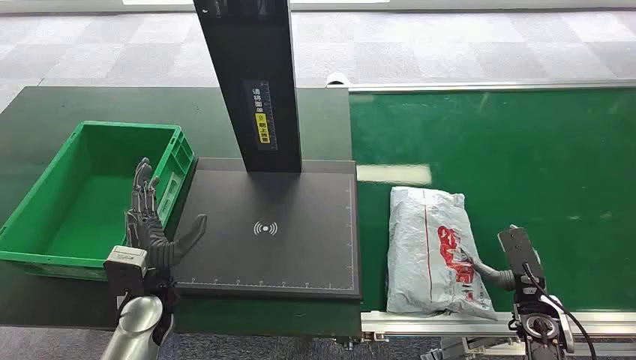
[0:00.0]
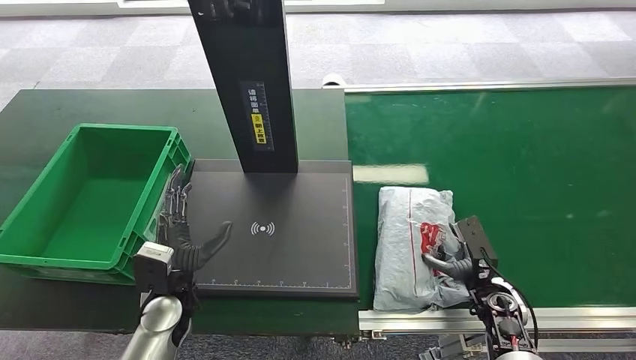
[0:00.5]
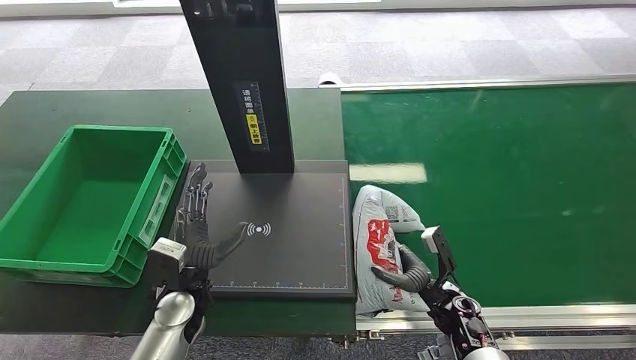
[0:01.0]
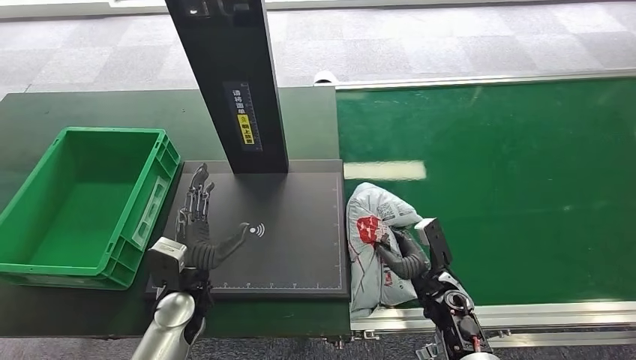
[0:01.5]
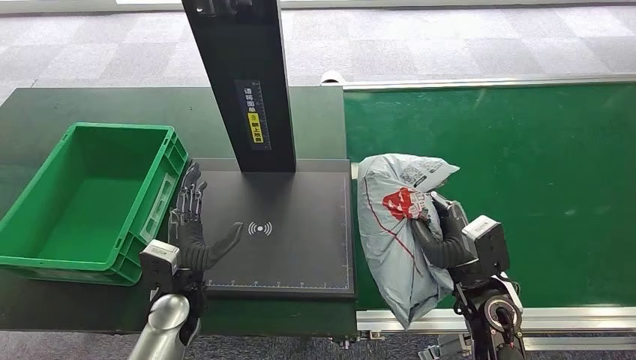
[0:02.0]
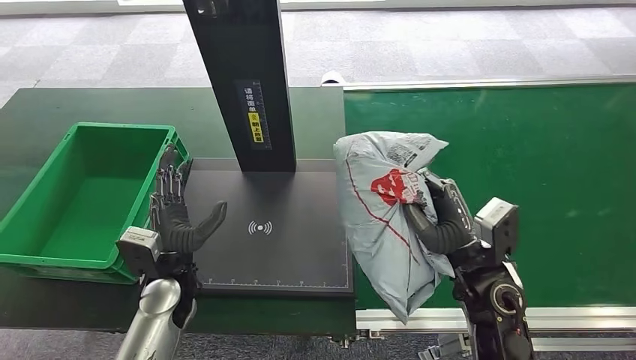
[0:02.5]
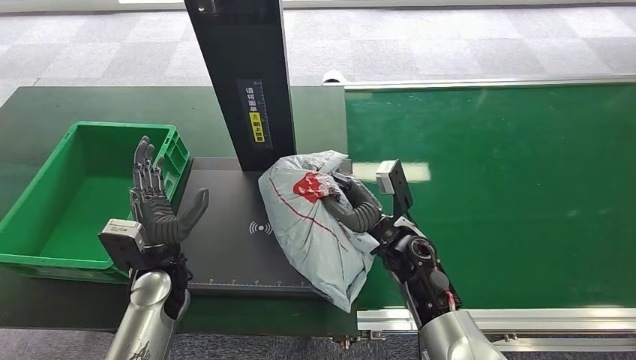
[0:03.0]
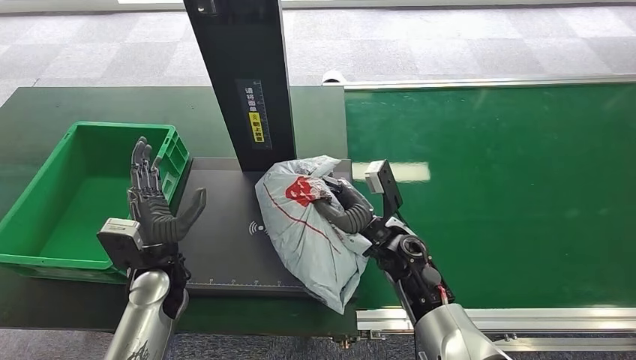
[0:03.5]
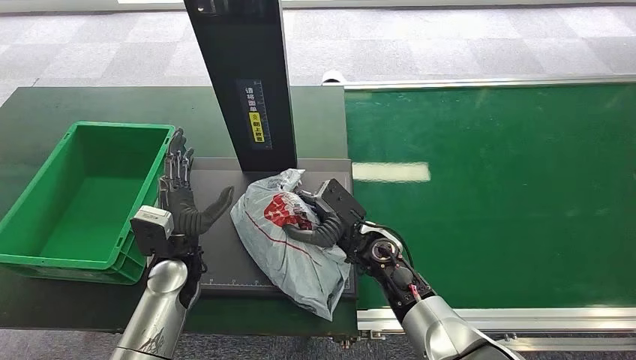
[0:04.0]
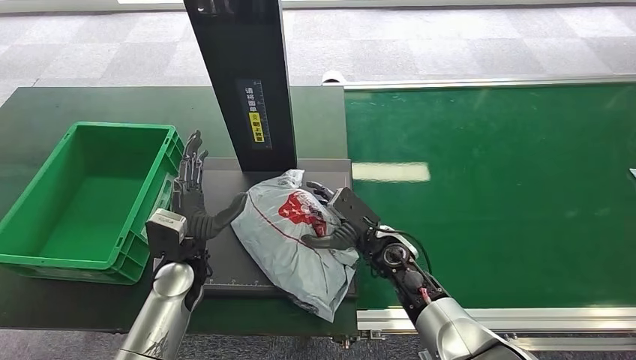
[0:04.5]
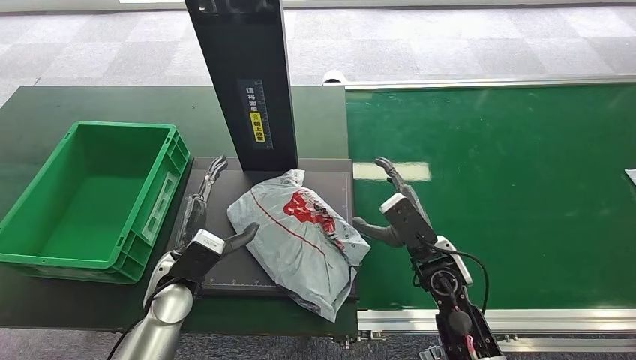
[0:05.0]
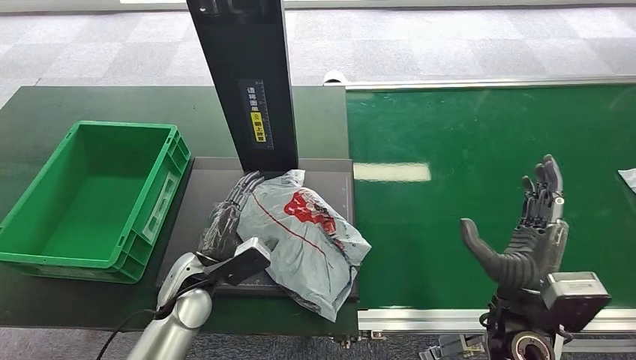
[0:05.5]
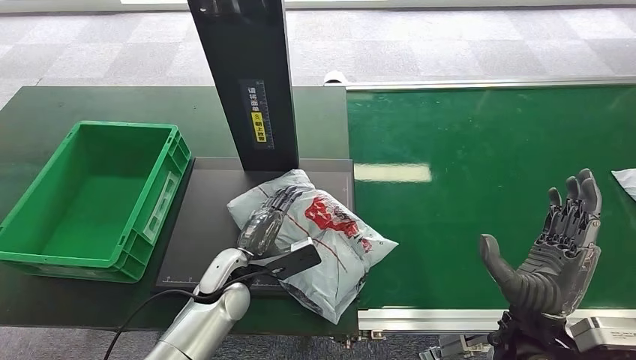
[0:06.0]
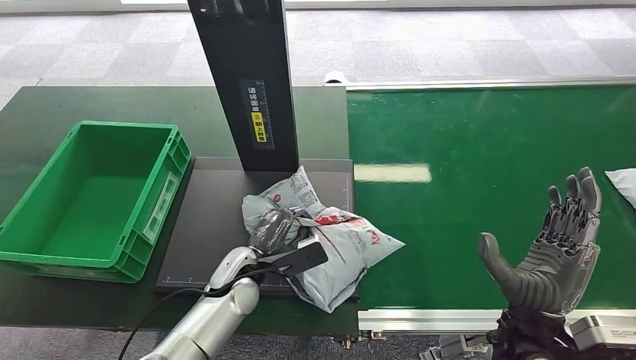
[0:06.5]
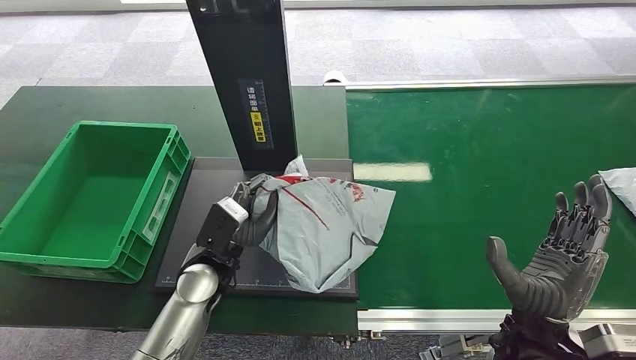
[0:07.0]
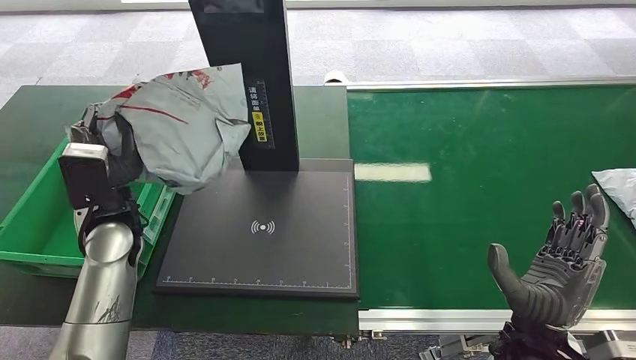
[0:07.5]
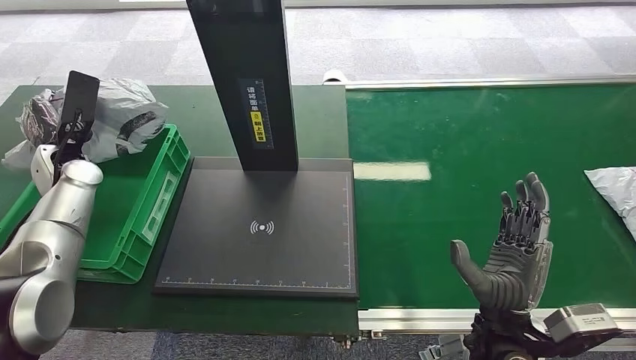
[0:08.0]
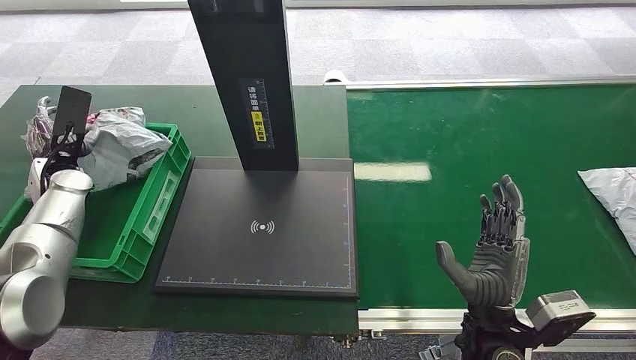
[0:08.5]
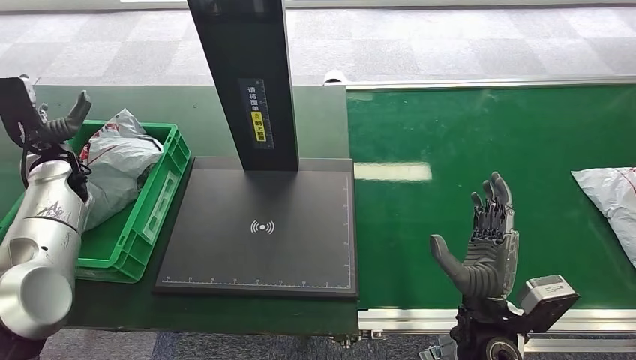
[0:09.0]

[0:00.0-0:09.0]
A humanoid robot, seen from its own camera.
Step, 0:00.0 to 0:02.0: Pick up the package from the conveyor belt.
Step, 0:02.5 to 0:04.5: Place the package onto the inbound machine.
Step, 0:05.0 to 0:07.5: Pick up the package from the inbound machine.
Step, 0:08.0 to 0:09.0: Place the package into the parcel locker.
0:02.0 to 0:04.5: The left hand shifts by some 5 cm, while the right hand heads to the left and forward, covering roughly 15 cm.
0:04.5 to 0:07.0: The right hand shifts roughly 20 cm backward, to the right and upward.
